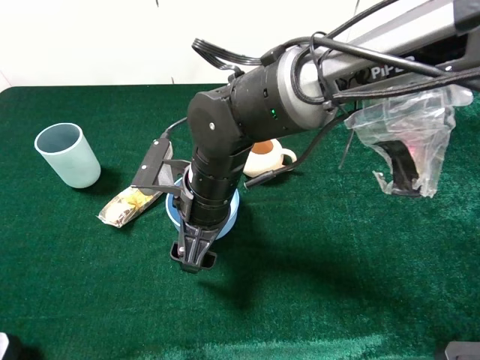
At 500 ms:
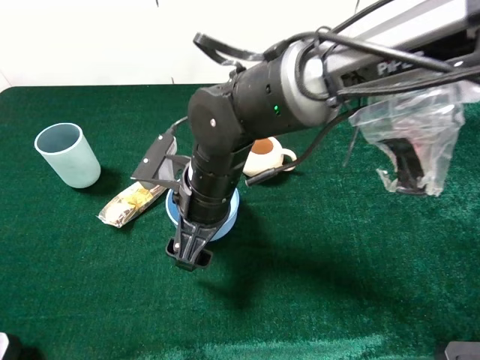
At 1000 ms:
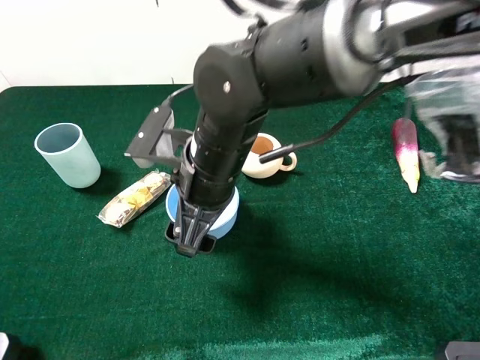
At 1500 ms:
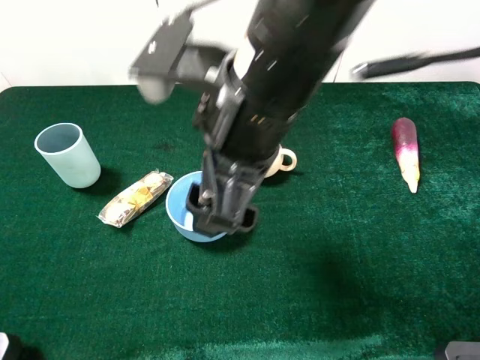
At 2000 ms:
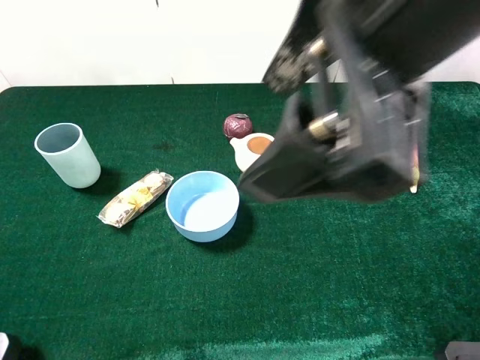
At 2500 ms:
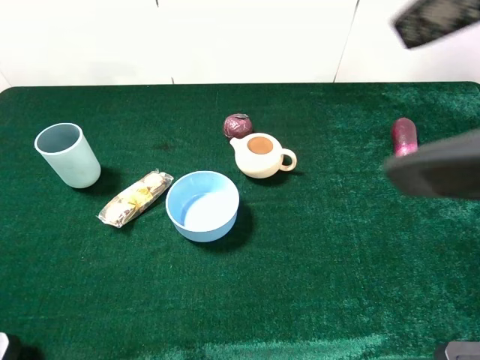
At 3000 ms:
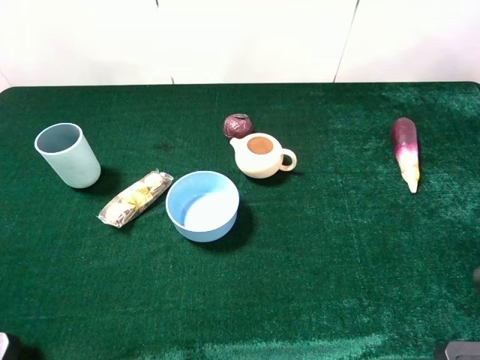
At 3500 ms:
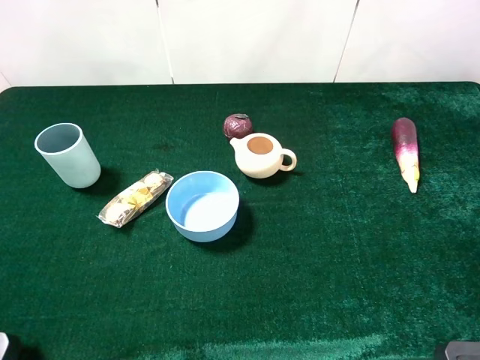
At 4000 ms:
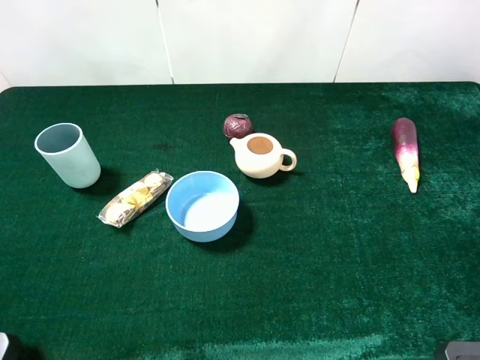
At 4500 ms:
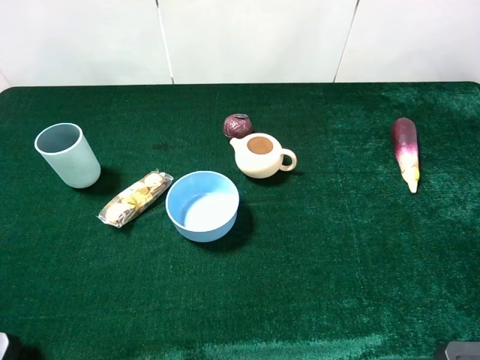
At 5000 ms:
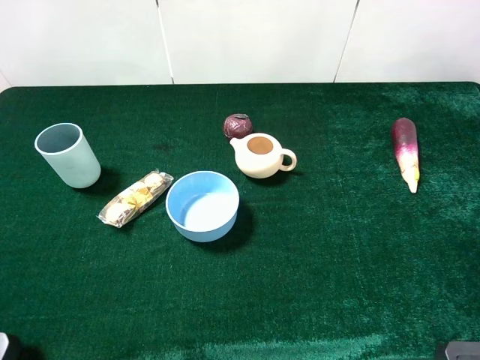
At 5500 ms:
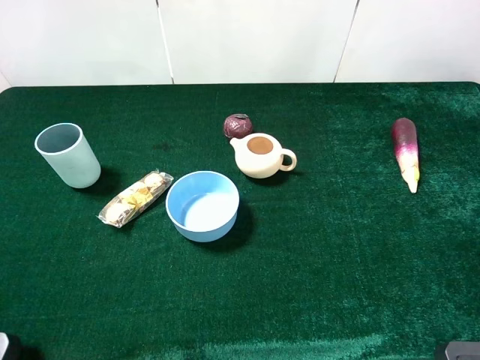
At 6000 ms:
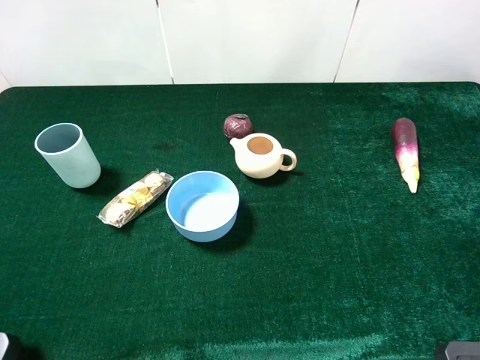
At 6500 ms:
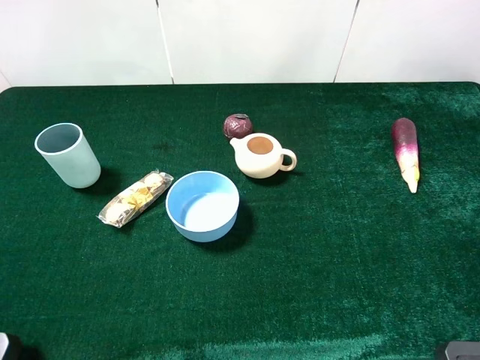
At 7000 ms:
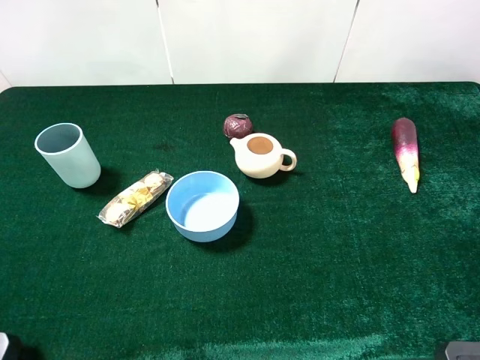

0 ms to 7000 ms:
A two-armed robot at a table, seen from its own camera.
Task of the whole recording: the gripper move the object.
0 ms to 2000 ms: The right gripper heads upward and to the right, covering roughly 30 cm.
2000 ms to 3500 ms: The right gripper heads to the right, backward and downward, covering approximately 20 cm.

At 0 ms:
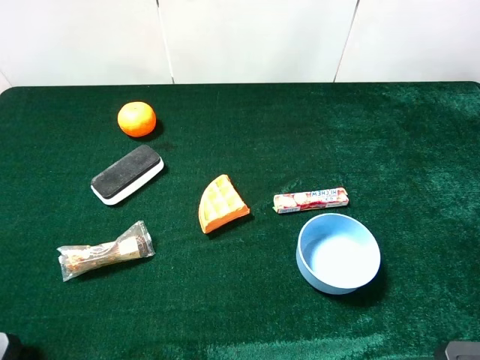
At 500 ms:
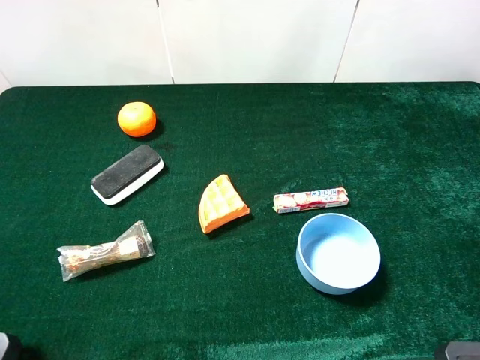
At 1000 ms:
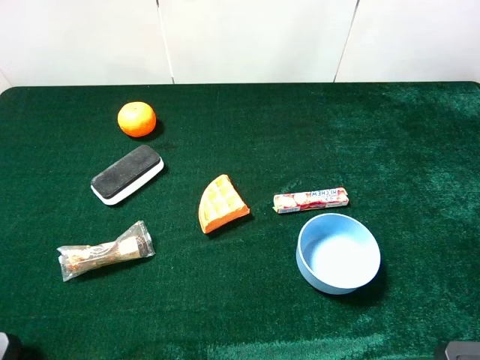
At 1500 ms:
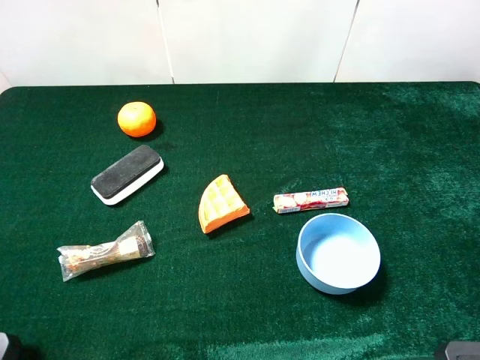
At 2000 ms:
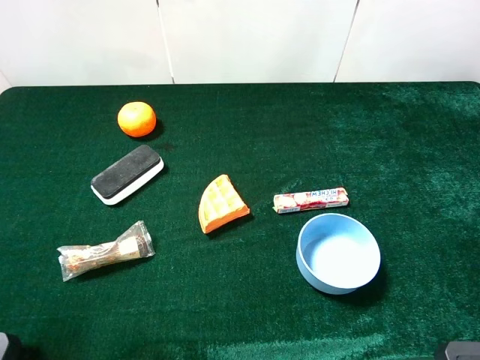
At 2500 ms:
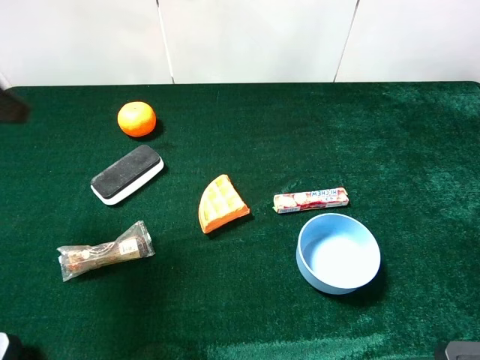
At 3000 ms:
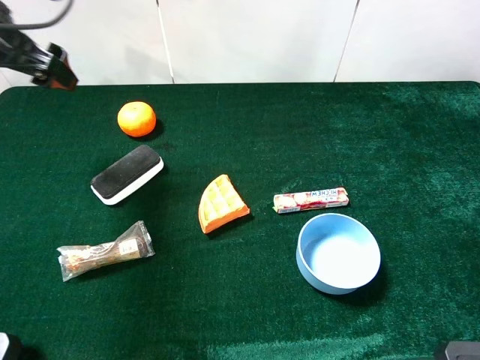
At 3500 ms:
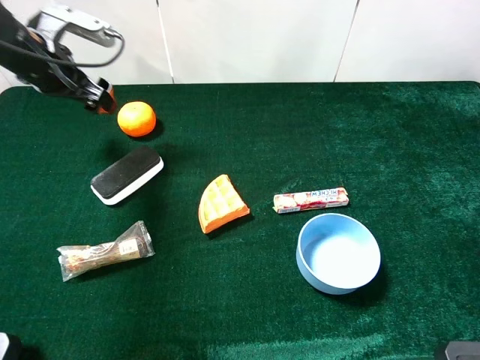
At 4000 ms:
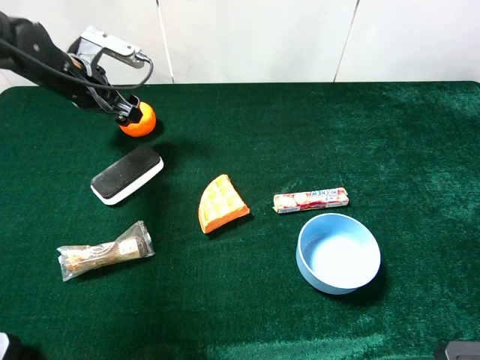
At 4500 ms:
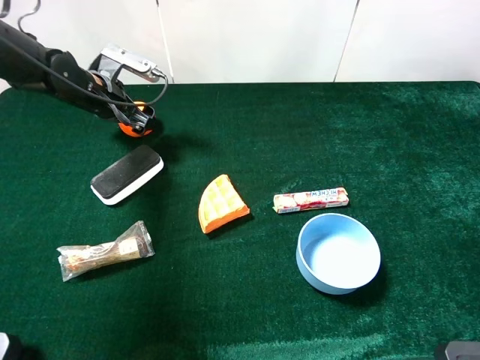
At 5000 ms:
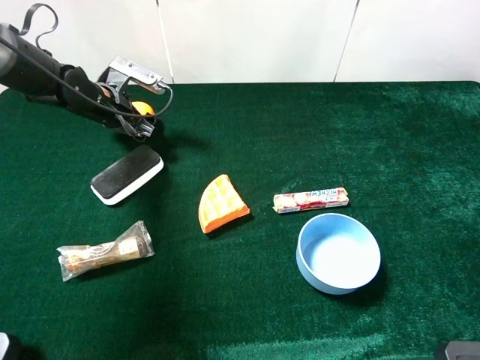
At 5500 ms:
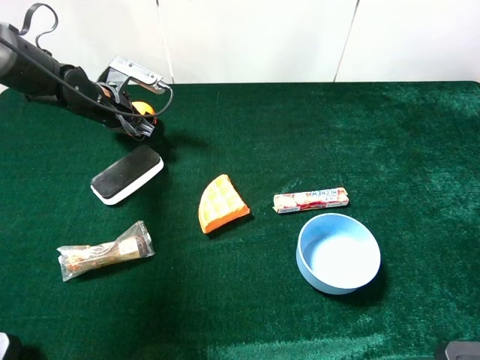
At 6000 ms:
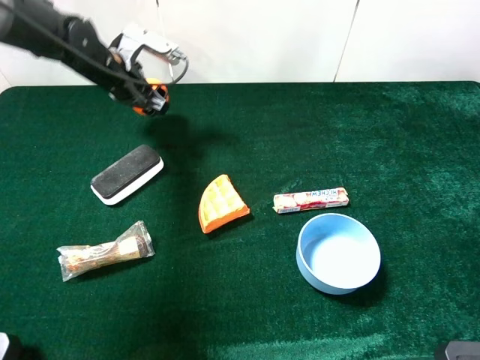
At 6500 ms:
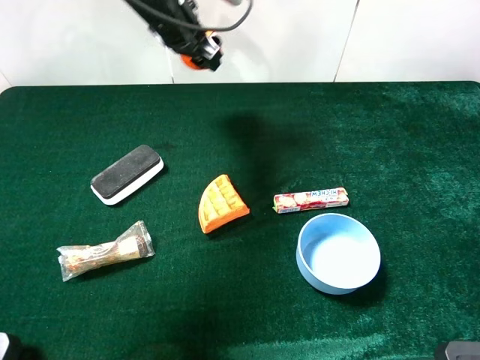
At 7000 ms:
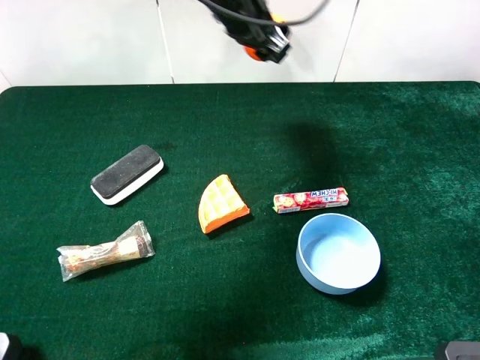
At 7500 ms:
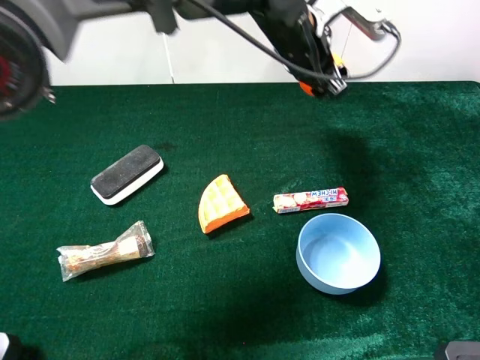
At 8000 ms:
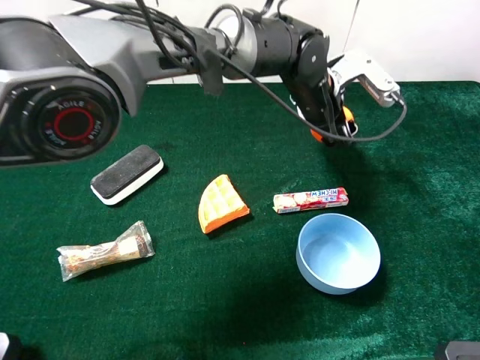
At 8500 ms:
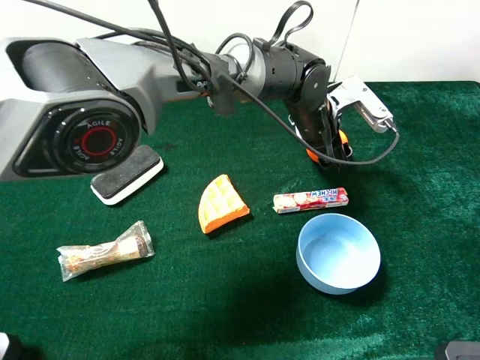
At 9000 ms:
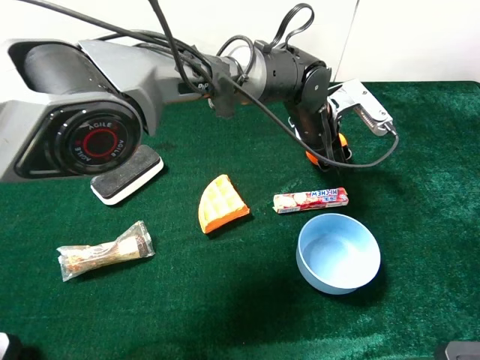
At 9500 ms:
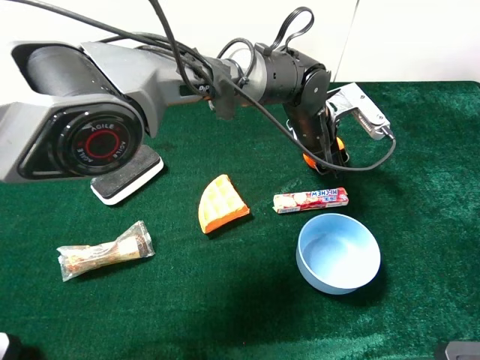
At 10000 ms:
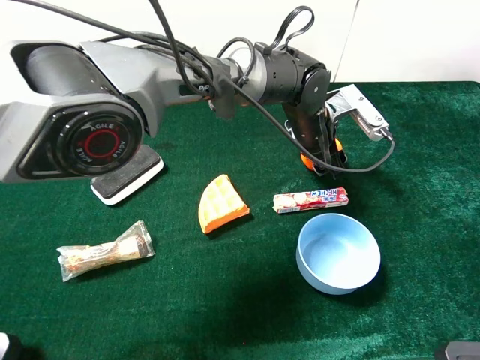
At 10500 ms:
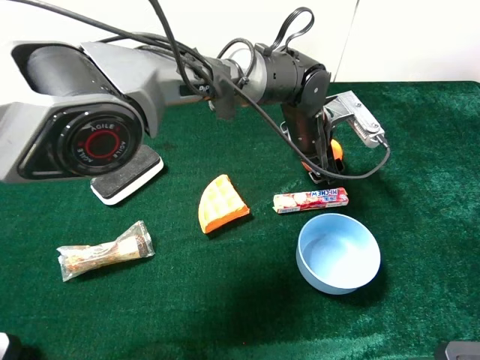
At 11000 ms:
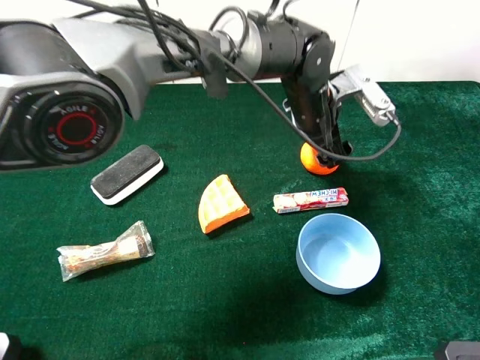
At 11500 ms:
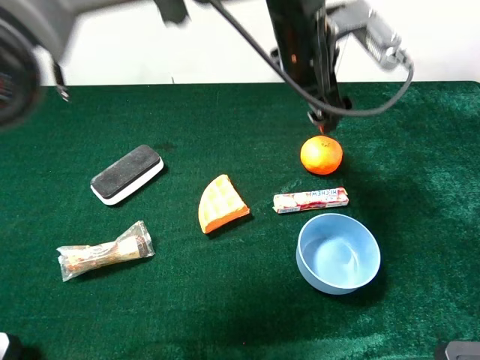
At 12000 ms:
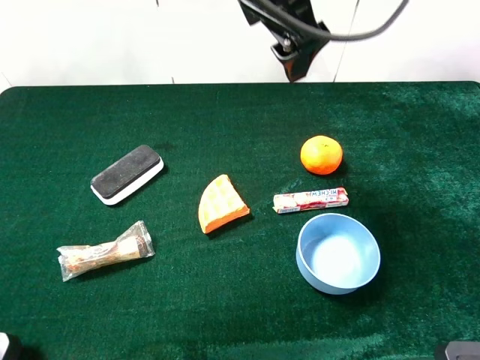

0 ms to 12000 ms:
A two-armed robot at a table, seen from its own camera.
Task of the whole recording: the gripper move the object.
Step, 0 ms to 5000 ms: Grasp the orange with the left gripper.
Step, 5500 ms to 10500 ms: Place the orange on the table with the left gripper.
2000 ms to 4000 ms: The left gripper goes roughly 35 cm forward and downward.
4000 ms to 6000 ms: The left gripper goes about 5 cm to the right, and closes up.
6000 ms to 8000 ms: The left gripper moves to the right, roughly 30 cm.
10000 ms to 12000 ms: The left gripper moves upward, approximately 25 cm, and opens.

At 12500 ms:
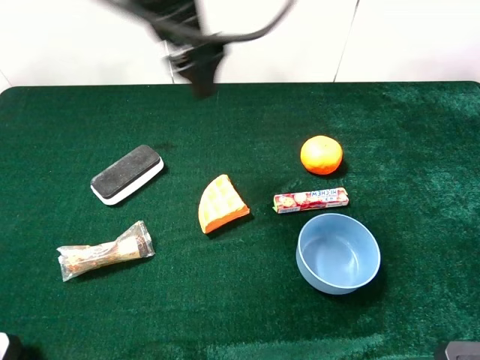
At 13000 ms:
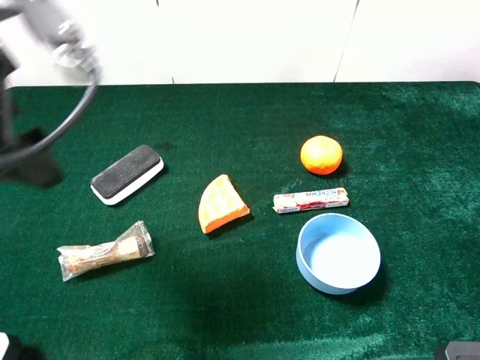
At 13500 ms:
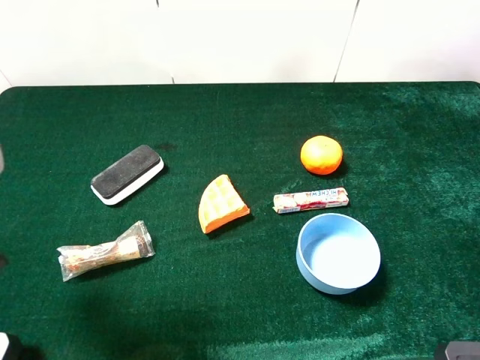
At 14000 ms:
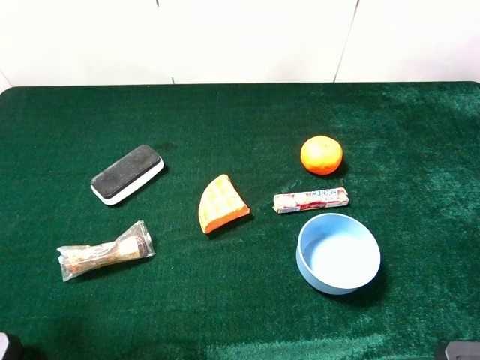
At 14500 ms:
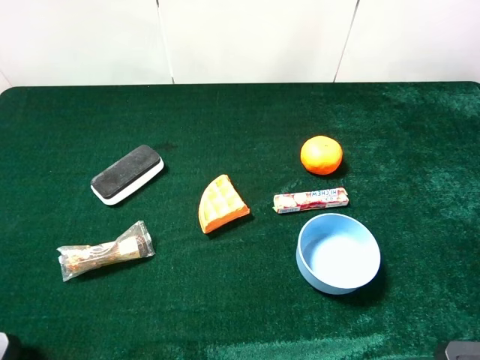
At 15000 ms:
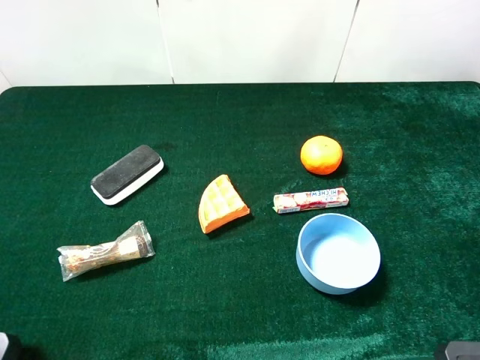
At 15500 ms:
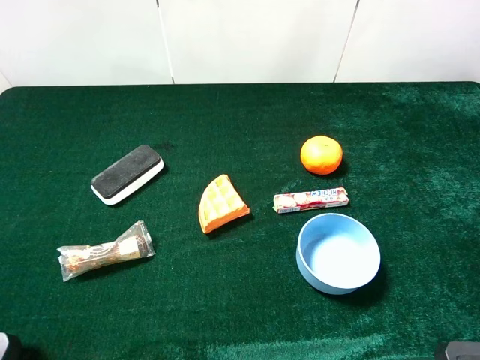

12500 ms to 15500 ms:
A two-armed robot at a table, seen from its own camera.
Task of the whole recording: the gripper move the object.
12500 ms to 14000 ms: The left gripper moves backward and to the left, some 30 cm.
